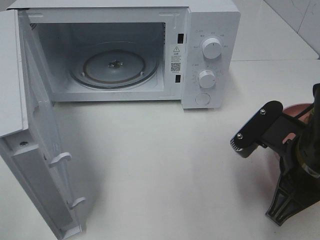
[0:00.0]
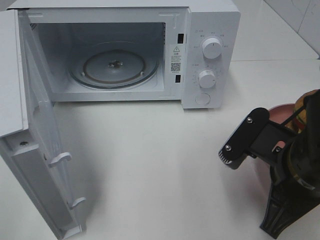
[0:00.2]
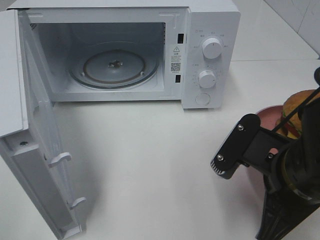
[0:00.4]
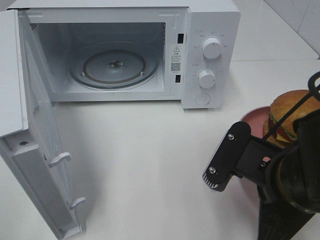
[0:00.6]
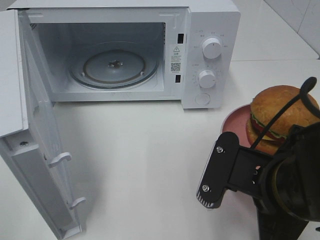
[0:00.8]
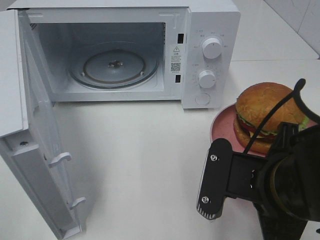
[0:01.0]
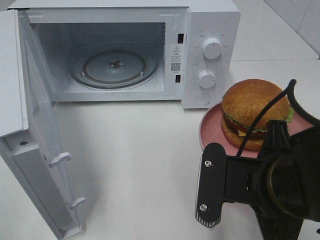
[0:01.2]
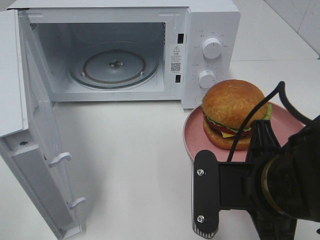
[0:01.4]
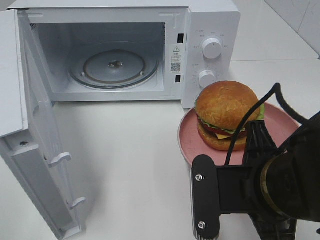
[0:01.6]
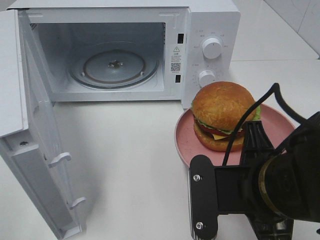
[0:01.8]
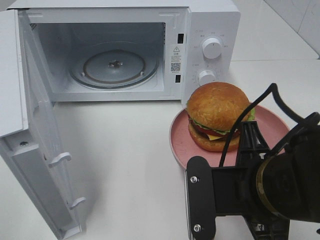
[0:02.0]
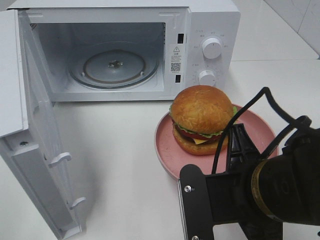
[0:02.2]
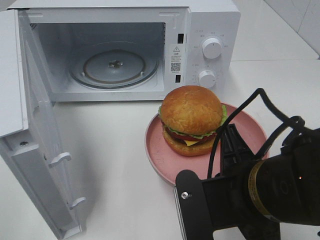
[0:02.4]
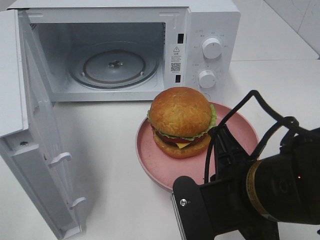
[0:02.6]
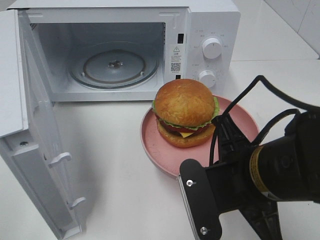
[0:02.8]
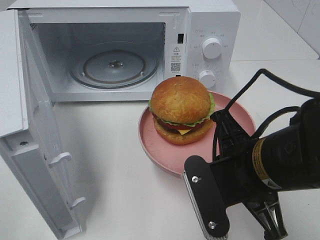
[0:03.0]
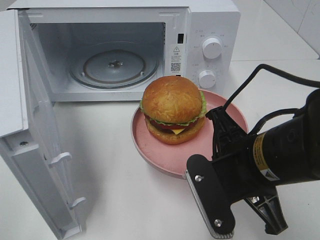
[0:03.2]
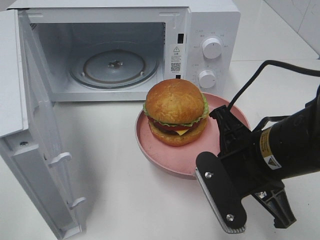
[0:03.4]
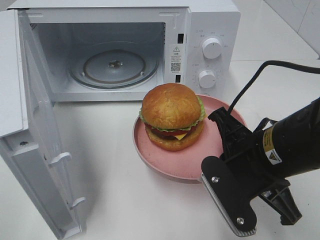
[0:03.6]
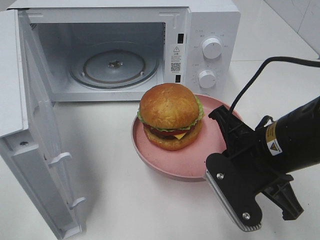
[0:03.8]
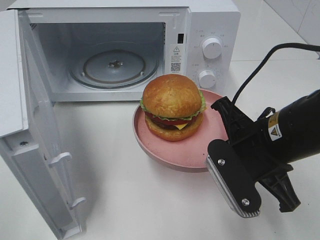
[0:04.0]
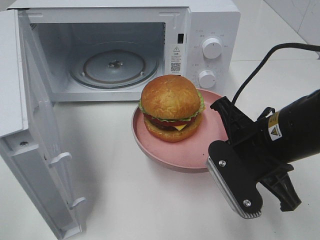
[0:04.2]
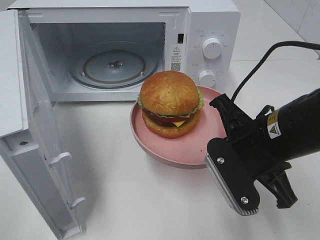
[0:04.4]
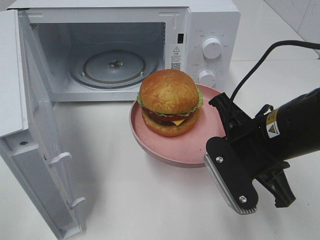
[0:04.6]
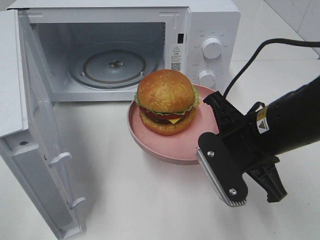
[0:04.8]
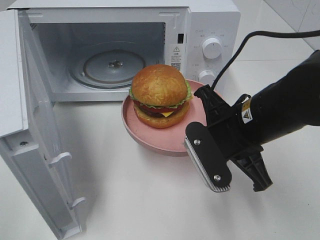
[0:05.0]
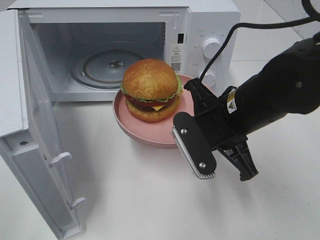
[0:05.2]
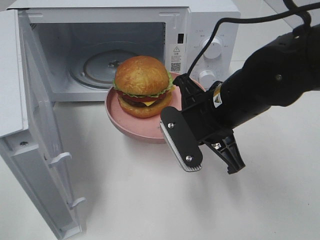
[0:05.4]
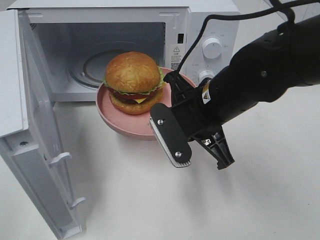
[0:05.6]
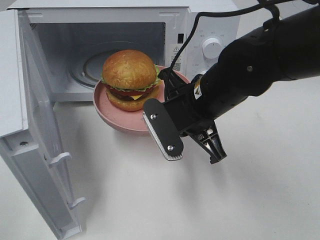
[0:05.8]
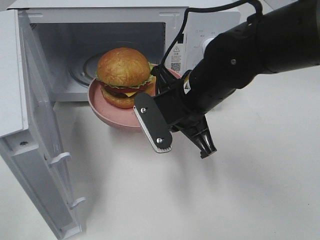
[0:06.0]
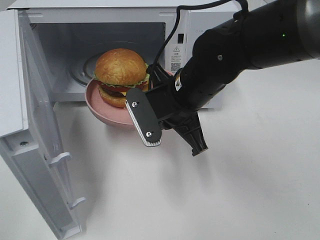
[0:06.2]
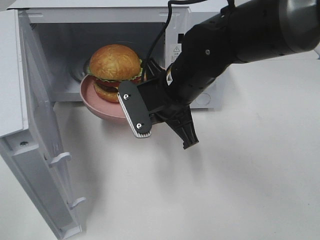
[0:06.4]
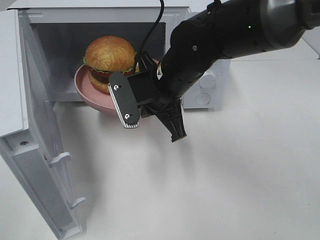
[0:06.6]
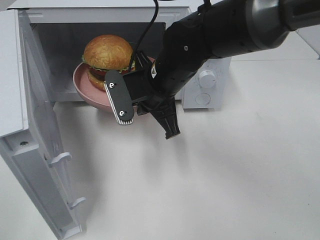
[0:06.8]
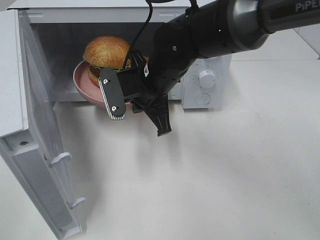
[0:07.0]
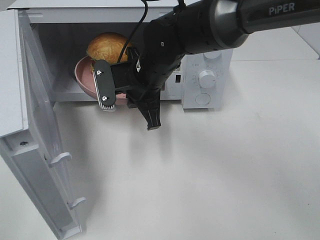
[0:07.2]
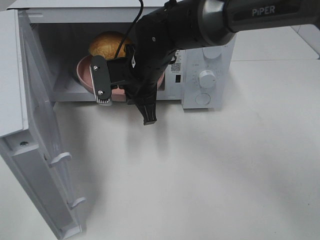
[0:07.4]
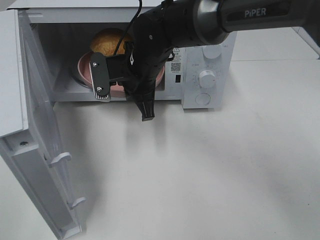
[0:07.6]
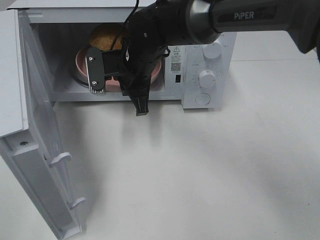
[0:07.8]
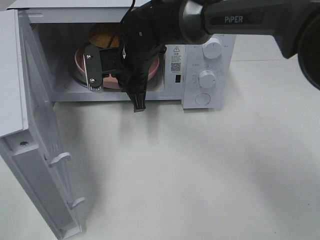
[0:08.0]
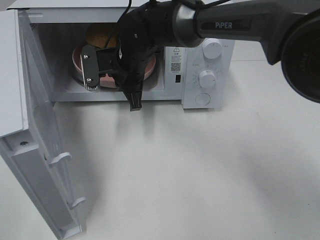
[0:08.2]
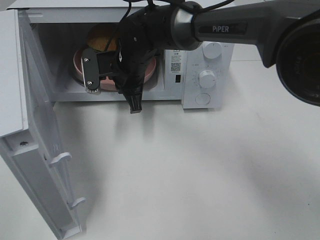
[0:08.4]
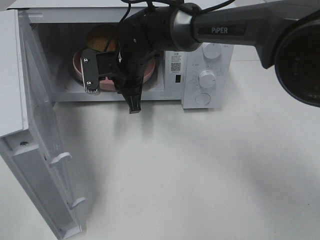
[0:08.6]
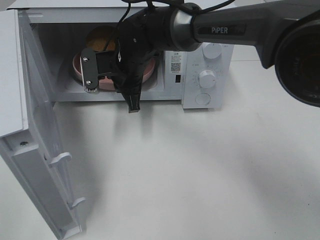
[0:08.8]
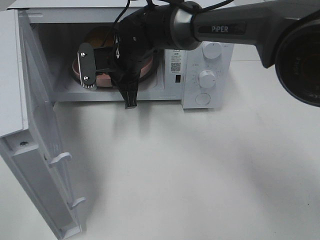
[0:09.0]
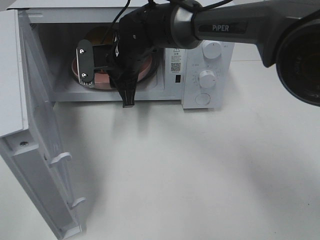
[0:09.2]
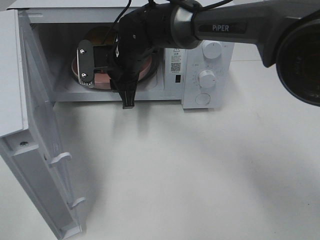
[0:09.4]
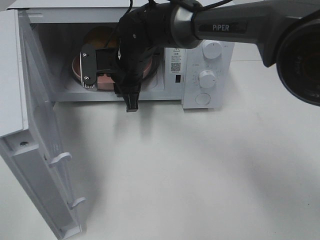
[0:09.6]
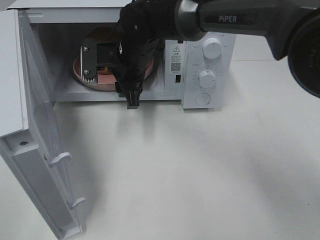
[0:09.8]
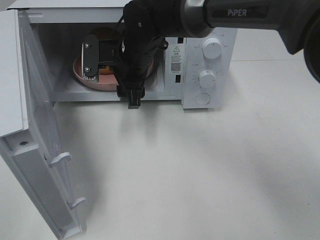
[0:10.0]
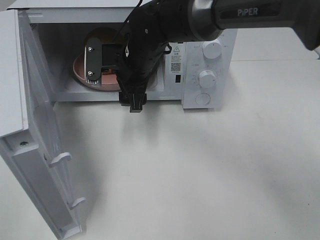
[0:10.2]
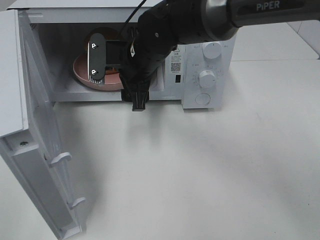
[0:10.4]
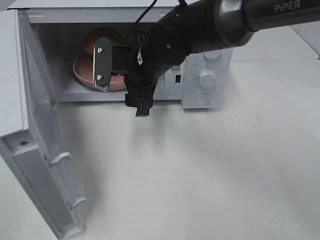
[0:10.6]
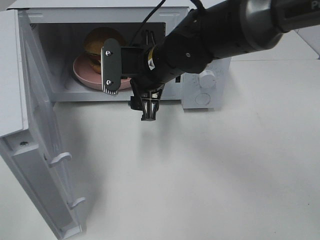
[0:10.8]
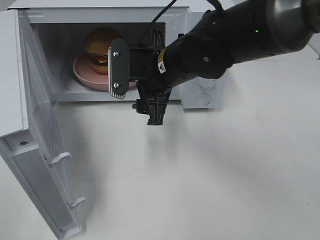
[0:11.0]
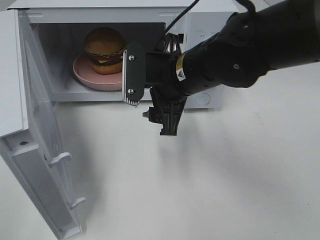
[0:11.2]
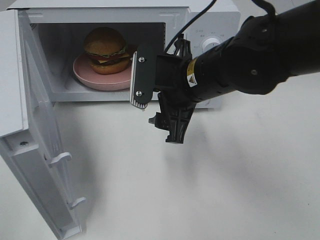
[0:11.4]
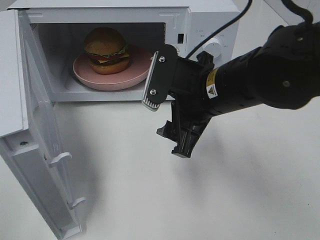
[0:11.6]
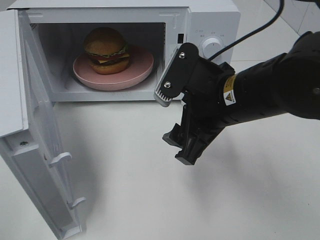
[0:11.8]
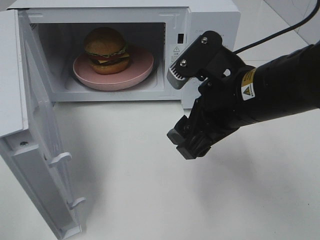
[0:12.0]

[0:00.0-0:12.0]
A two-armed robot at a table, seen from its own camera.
Task of the whole recording: Heat the burger.
Step, 0:00.0 to 0:09.2: Right hand: place the plate in the microwave.
0:00.0 to 0:01.6: The right gripper heads to the left, covering some 5 cm.
0:03.0 to 0:04.4: There are only small adjustments of the grippers.
0:04.4 to 0:06.0: The right gripper travels to the left and forward by about 10 cm.
0:06.0 to 0:07.6: The right gripper heads forward and to the left, covering some 15 cm.
0:07.6 to 0:09.0: The grippers stay close to where they were, moving slightly.
0:09.0 to 0:10.4: The right gripper ends up roughly 5 cm from where it was, and opens.
0:10.4 to 0:12.0: The right gripper travels backward and to the right by about 20 cm.

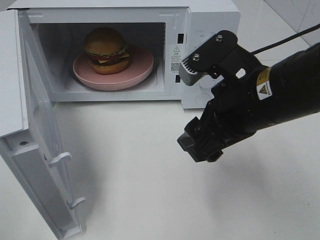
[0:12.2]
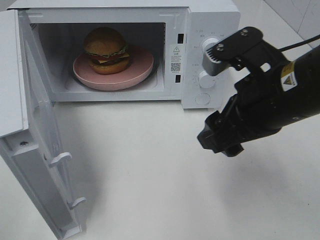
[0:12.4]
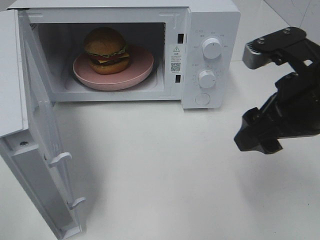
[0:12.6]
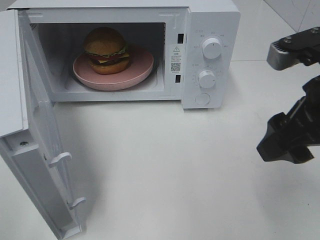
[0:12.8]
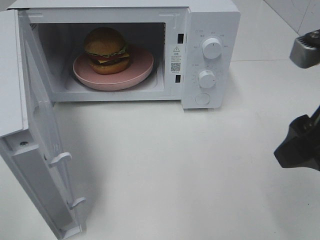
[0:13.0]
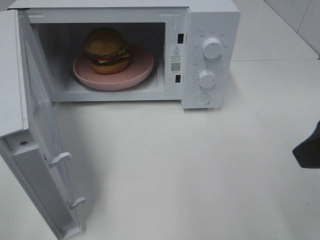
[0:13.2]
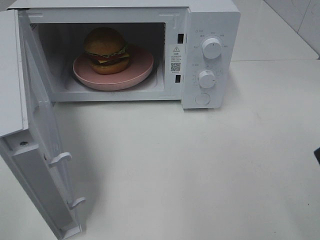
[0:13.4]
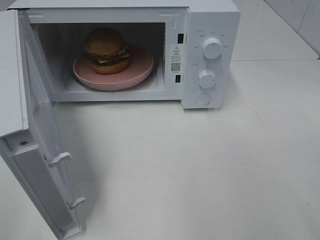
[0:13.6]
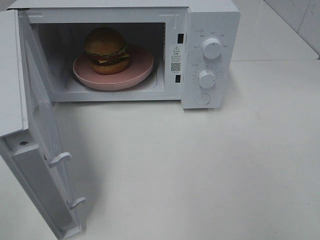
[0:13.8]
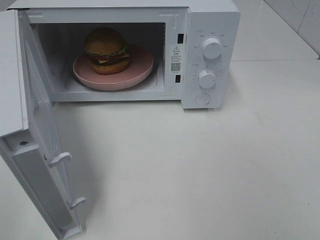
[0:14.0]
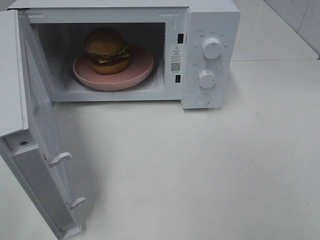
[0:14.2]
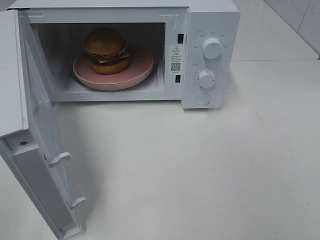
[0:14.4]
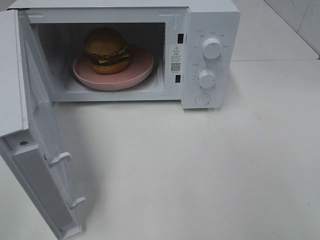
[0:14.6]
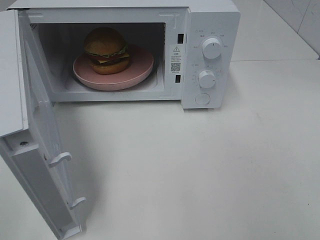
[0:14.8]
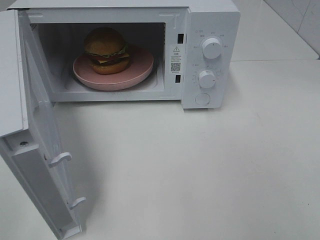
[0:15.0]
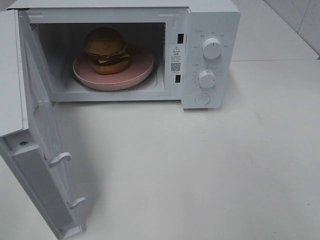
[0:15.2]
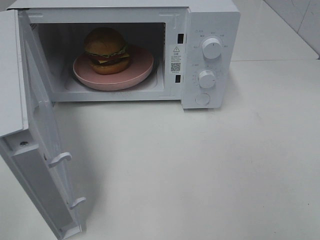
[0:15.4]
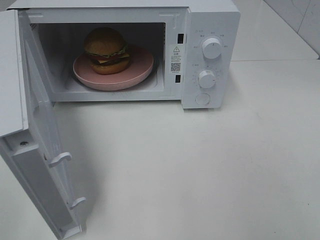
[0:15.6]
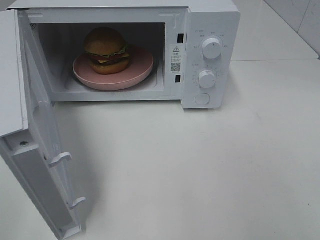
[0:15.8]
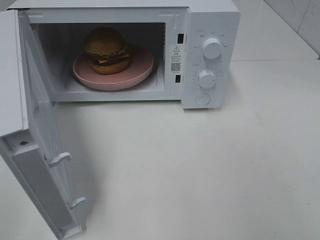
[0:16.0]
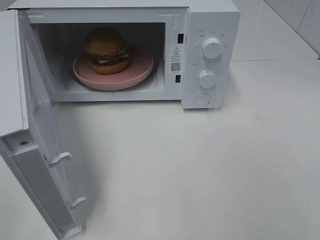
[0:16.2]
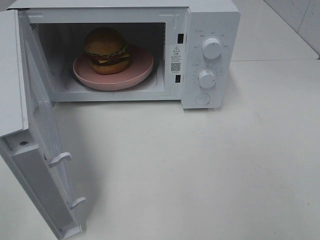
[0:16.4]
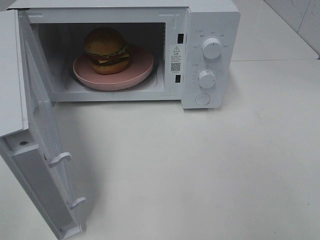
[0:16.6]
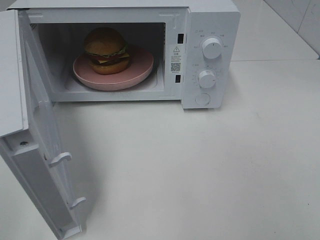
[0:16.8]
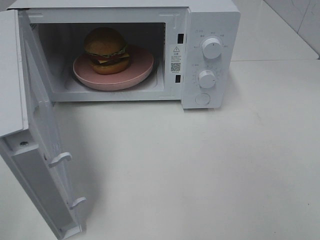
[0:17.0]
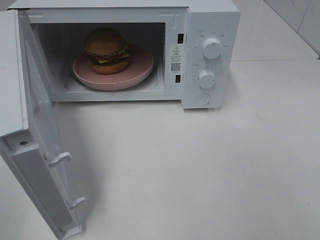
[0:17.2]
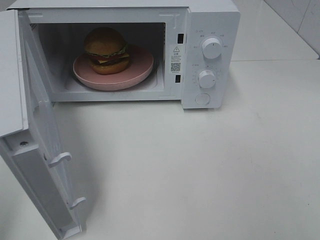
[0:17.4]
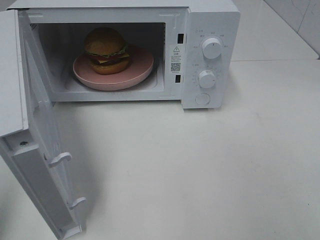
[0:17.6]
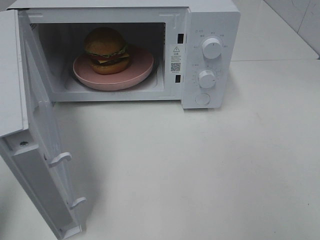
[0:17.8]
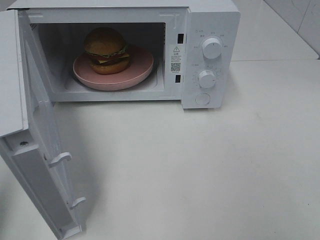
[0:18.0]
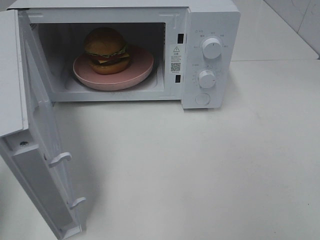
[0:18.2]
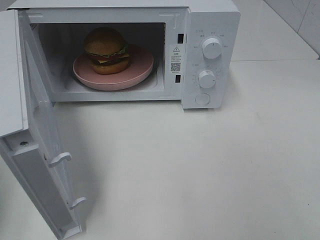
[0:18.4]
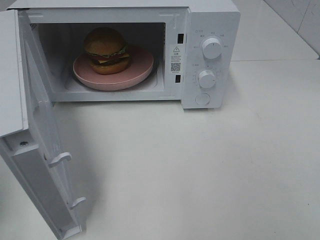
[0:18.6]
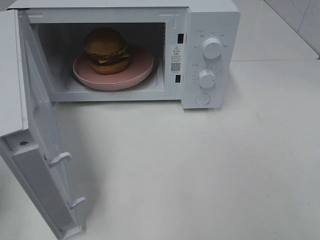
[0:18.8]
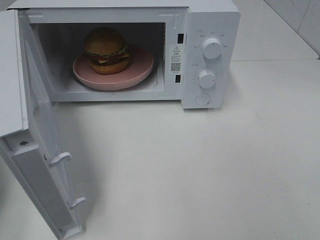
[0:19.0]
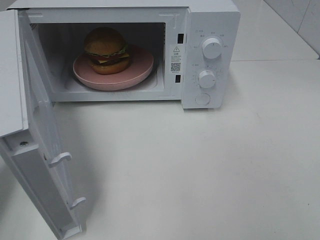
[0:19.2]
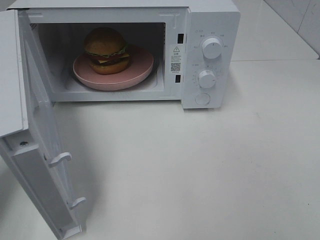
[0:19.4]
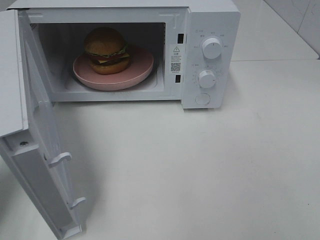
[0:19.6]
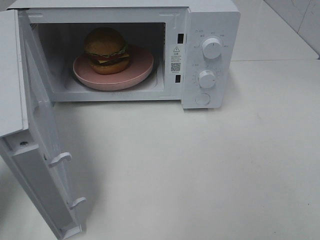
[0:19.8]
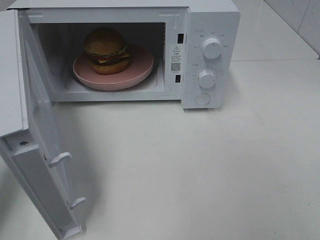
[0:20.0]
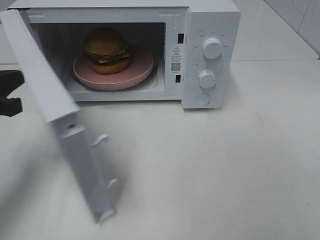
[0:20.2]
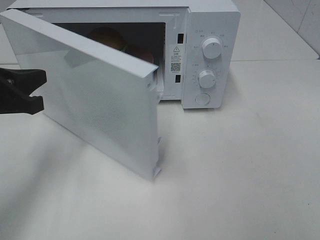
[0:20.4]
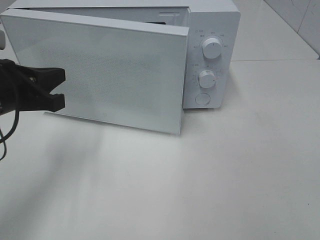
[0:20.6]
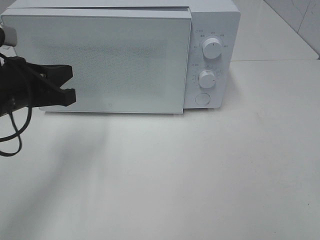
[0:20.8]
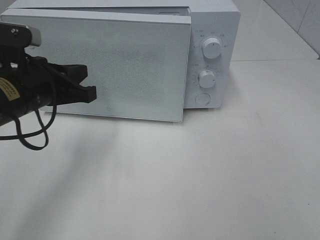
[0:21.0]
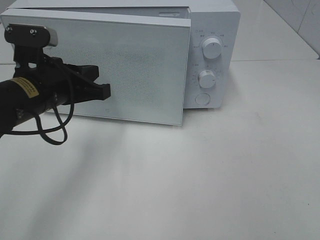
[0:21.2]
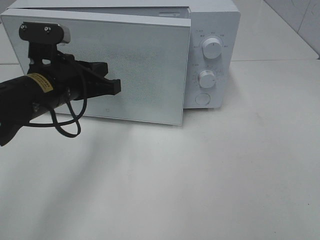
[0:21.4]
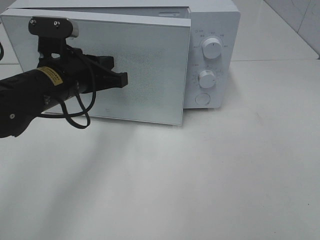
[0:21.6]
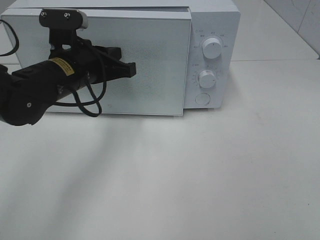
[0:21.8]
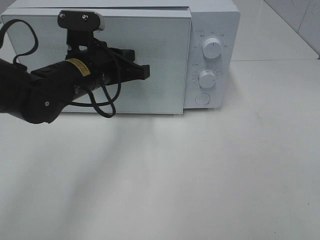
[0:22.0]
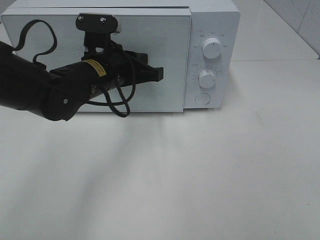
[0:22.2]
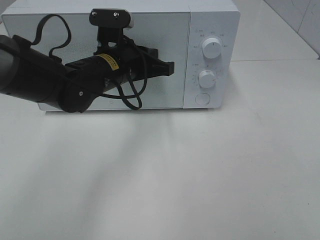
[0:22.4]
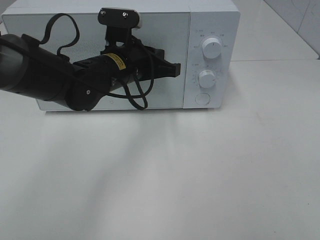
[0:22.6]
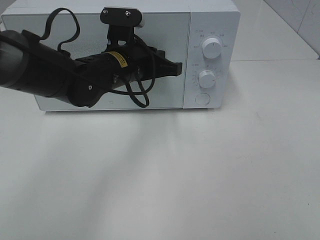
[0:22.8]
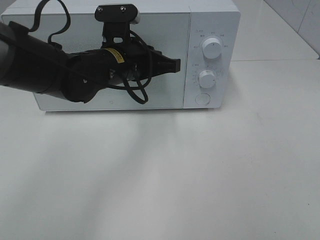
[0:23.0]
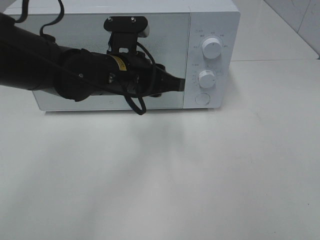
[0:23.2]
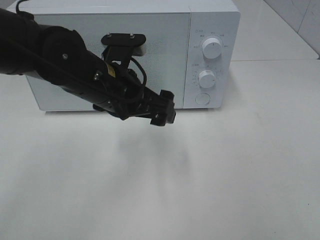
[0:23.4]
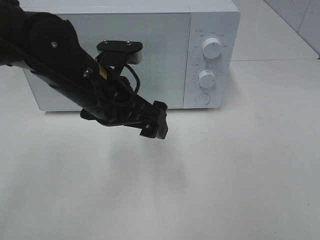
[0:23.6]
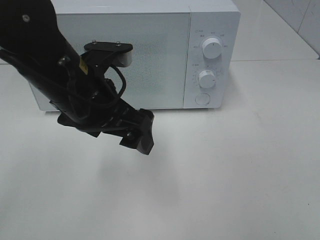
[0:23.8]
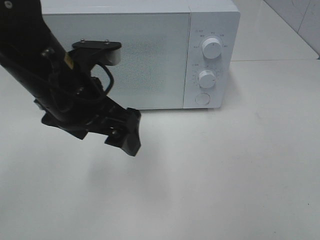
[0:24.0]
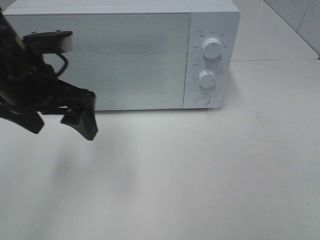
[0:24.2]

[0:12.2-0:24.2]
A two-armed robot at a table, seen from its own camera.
Task of the whole recording: Heat the burger.
Step, 0:12.2 to 0:23.0: Left hand: close the microwave door.
0:12.2 to 0:13.8: The right gripper travels to the right, backward and upward by some 25 cm.
0:15.2 to 0:16.6: Both grippers stay about where they are.
0:18.2 to 0:19.8: The left gripper moves forward and downward, some 10 cm.
0:19.8 to 0:21.2: The left gripper shifts approximately 15 cm to the right and forward.
0:21.2 to 0:22.6: The left gripper moves to the right and forward, about 15 cm.
0:22.6 to 0:24.2: The left gripper goes approximately 15 cm to the left, backward and upward, and opens its fingers.
